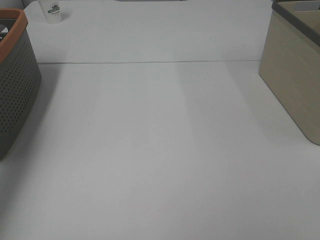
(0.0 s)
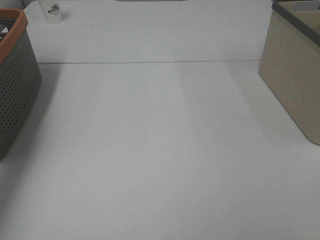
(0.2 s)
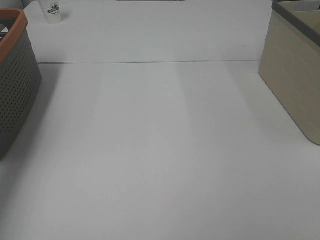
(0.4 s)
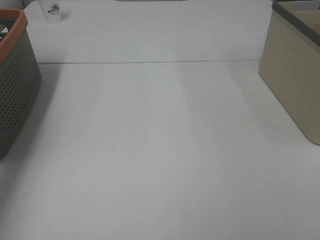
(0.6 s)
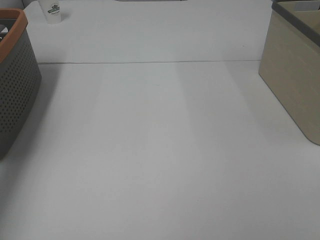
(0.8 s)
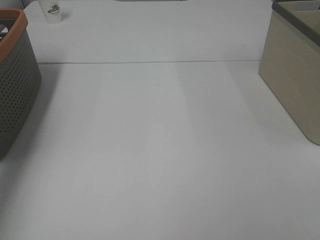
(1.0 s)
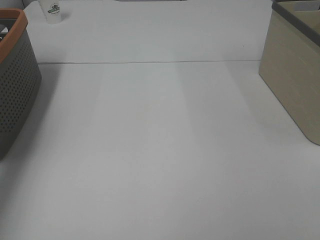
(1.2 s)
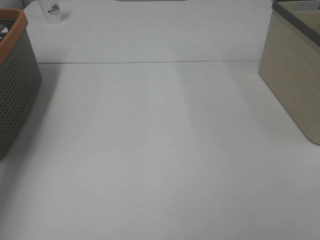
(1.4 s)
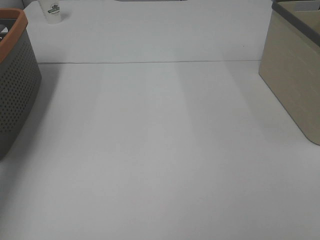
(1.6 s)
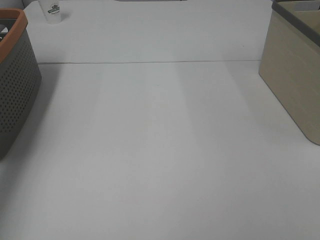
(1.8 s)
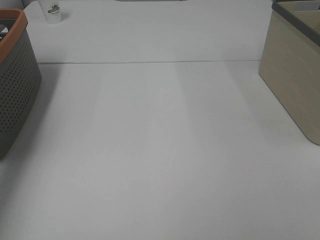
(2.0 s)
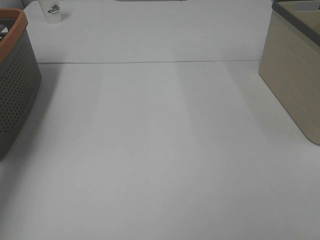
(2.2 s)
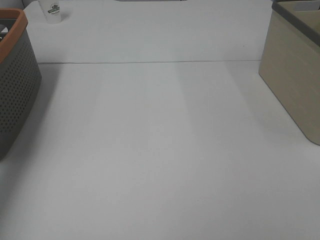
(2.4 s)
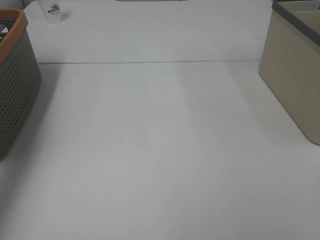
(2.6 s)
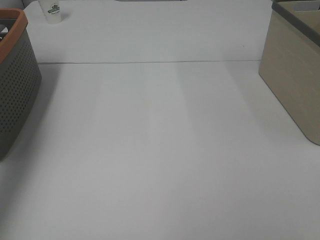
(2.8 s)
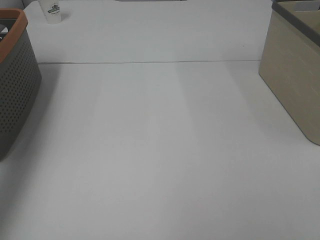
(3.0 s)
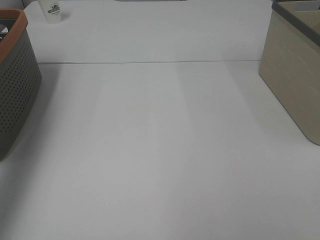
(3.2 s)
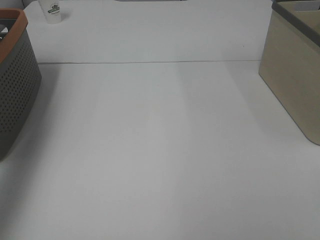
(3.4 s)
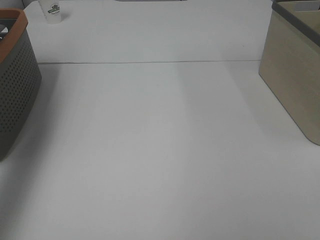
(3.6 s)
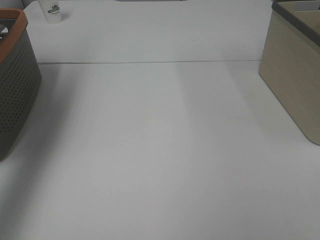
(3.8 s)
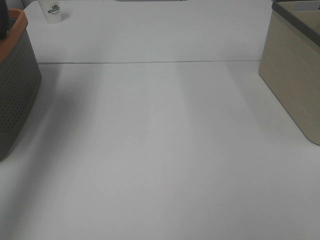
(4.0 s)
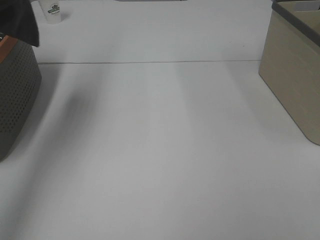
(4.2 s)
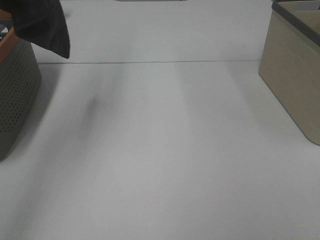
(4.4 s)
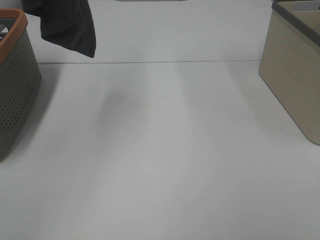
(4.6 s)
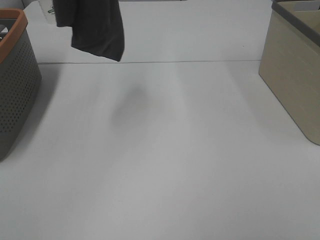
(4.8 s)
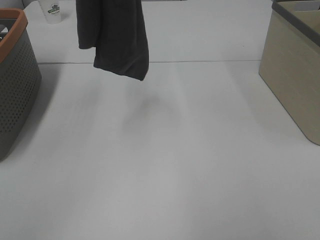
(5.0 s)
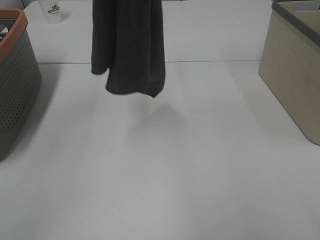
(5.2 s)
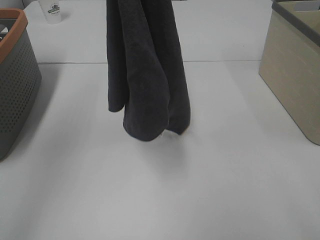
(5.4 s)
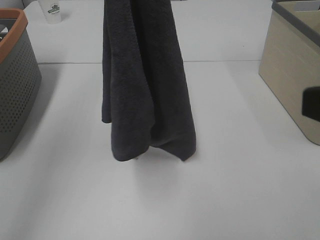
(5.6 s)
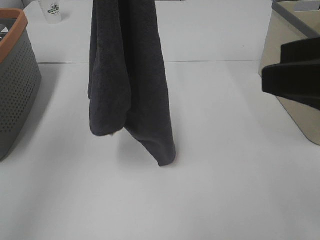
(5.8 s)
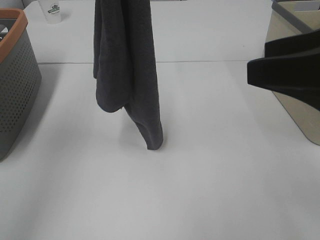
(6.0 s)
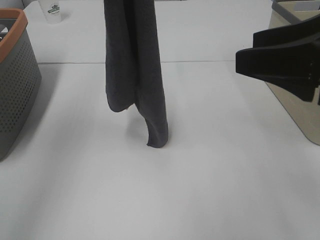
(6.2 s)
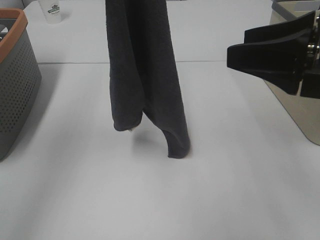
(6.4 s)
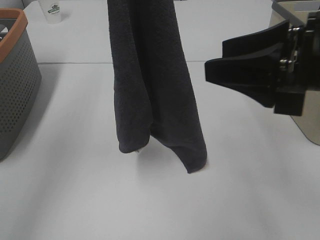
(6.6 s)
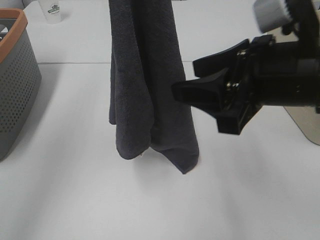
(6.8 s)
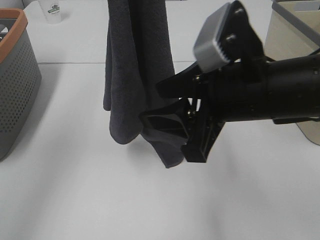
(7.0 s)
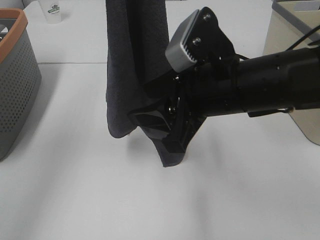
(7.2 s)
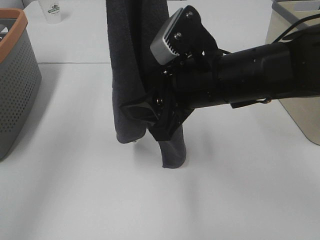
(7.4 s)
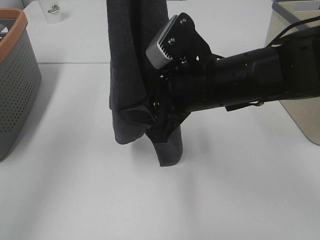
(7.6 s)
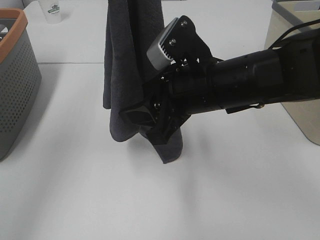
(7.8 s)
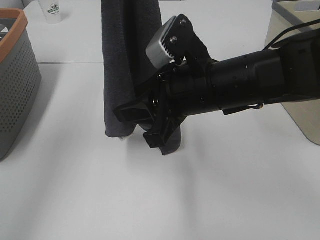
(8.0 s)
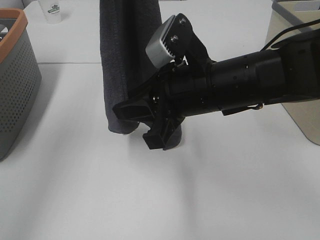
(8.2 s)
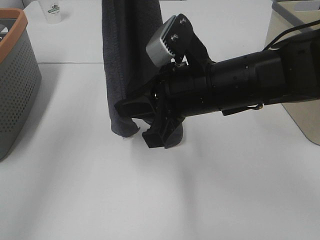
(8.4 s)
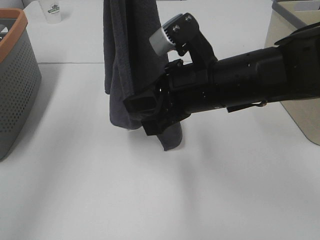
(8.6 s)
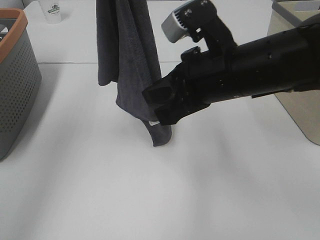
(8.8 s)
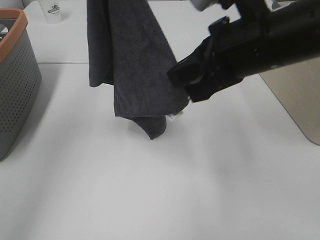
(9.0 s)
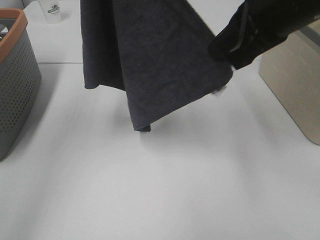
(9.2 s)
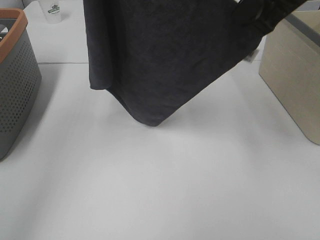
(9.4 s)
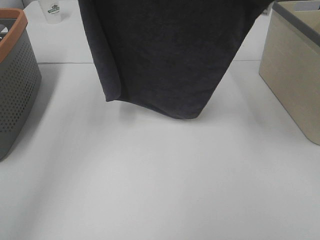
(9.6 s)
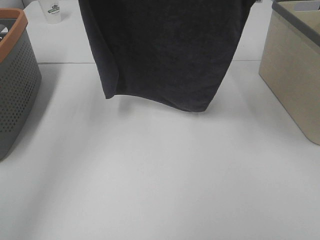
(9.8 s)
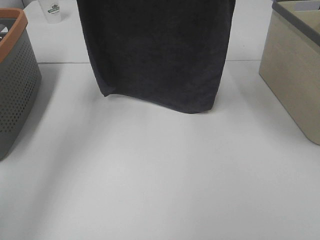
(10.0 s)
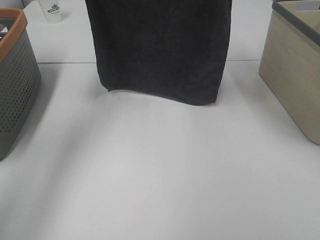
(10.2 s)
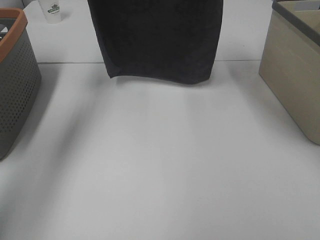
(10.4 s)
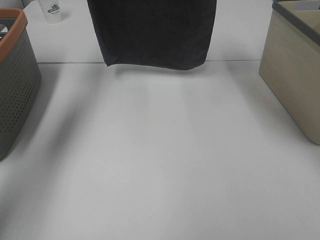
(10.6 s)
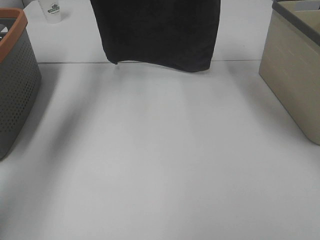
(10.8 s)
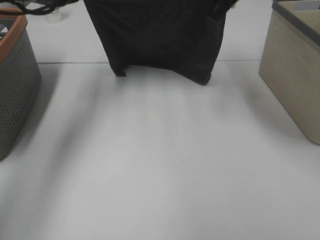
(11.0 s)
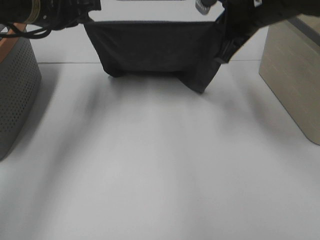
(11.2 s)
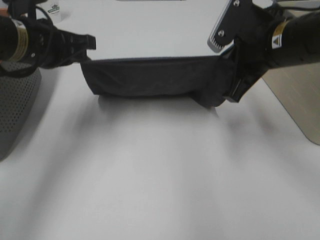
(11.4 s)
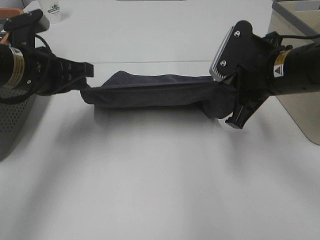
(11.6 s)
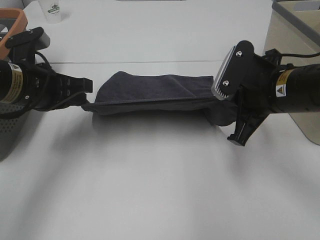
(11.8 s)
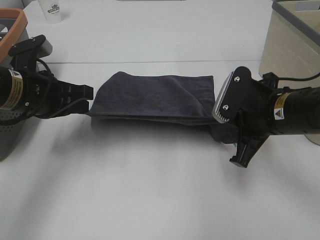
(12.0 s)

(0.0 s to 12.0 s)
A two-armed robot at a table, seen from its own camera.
Task of the whole recording: Remove the towel and place it.
Step, 3.8 s - 7.2 s: Right hand: grab a corner of the grey towel and straighten it.
Step, 7.4 s - 8.8 s: Left hand: spread the grey towel flat on the table.
Step, 7.4 s - 9.0 s: Right hand: spread the grey towel flat on the table.
3.0 s - 4.4 s: The left gripper moves upward and to the right, some 20 cm.
4.4 s - 6.0 s: The right gripper shifts approximately 20 cm forward and to the left. Meanwhile the left gripper travels downward and to the right by some 10 cm.
6.0 s - 7.6 s: The right gripper goes some 20 cm to the left, downward and forward.
7.6 s - 9.0 s: The right gripper is displaced upward by roughly 5 cm, and closes up.
9.0 s - 10.4 s: The left gripper is displaced forward and downward by roughly 20 cm. Meanwhile the right gripper travels forward and upward by approximately 25 cm.
10.4 s - 12.0 s: The left gripper shifts roughly 25 cm backward and downward; the right gripper shifts about 30 cm downward and backward.

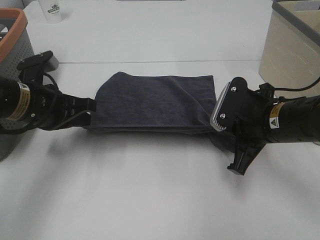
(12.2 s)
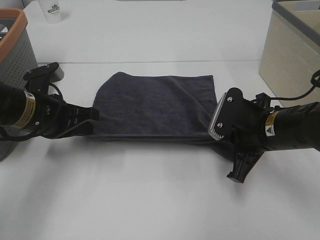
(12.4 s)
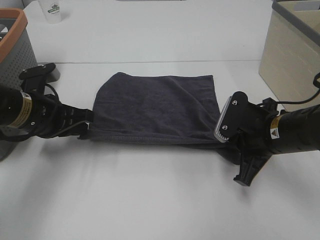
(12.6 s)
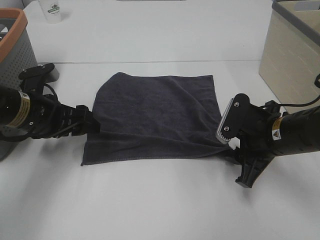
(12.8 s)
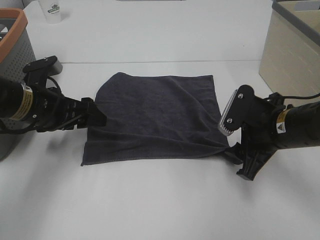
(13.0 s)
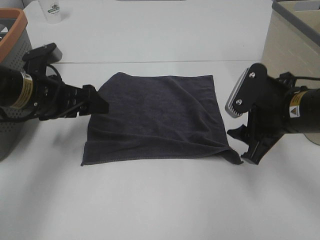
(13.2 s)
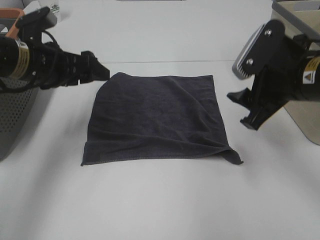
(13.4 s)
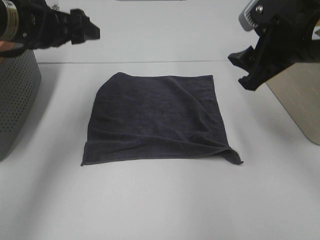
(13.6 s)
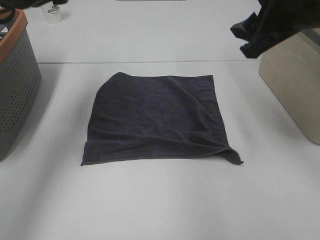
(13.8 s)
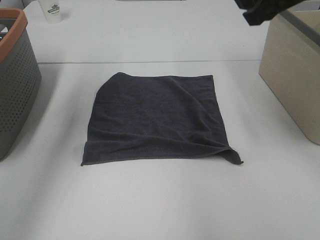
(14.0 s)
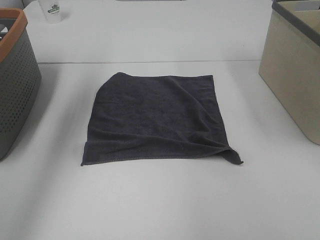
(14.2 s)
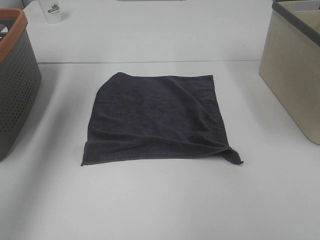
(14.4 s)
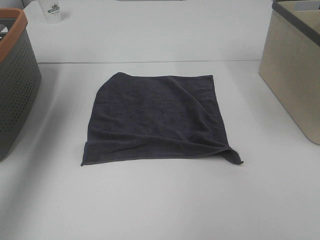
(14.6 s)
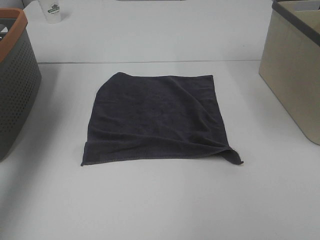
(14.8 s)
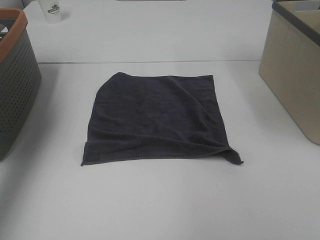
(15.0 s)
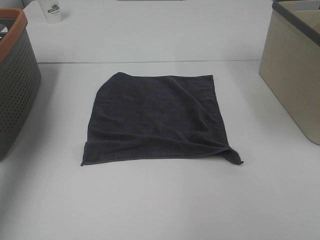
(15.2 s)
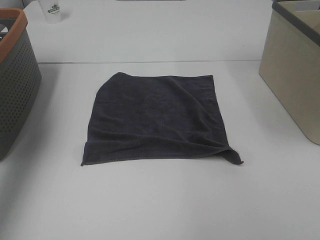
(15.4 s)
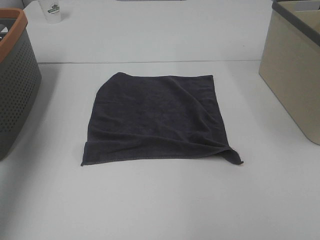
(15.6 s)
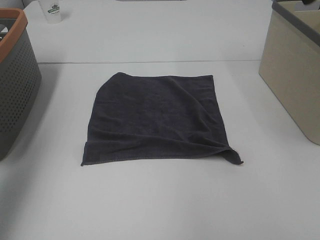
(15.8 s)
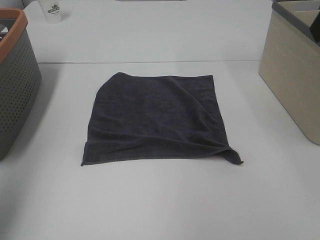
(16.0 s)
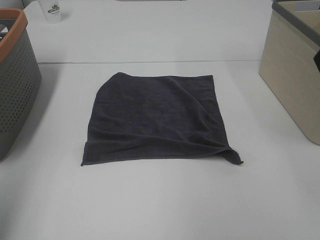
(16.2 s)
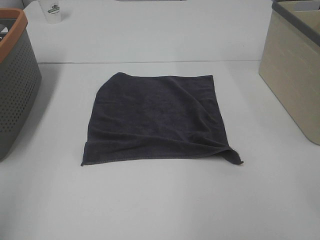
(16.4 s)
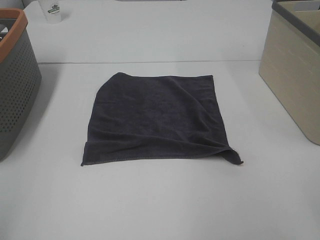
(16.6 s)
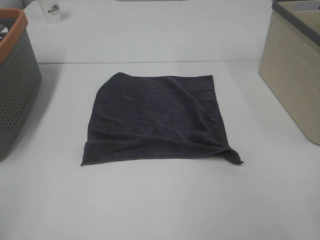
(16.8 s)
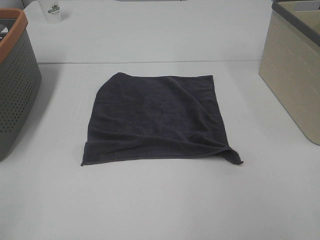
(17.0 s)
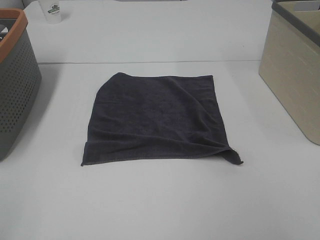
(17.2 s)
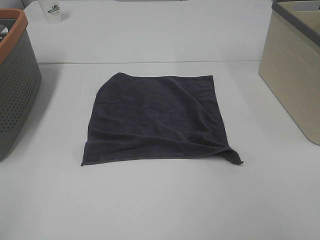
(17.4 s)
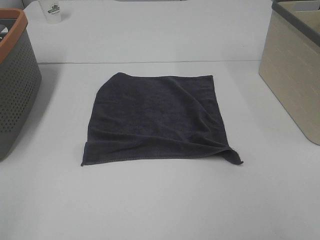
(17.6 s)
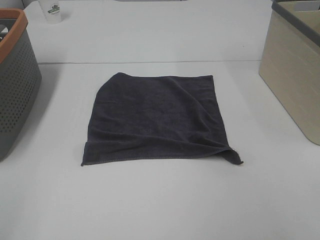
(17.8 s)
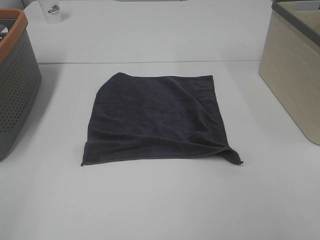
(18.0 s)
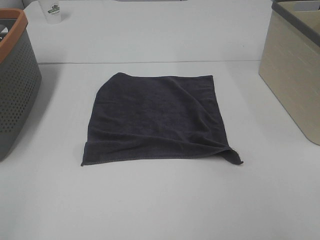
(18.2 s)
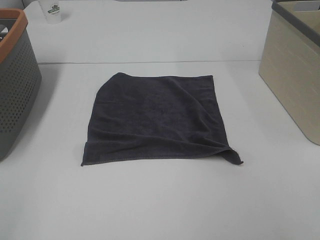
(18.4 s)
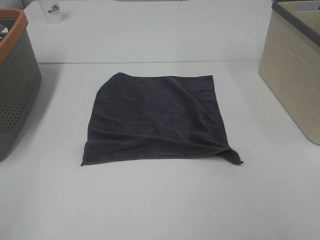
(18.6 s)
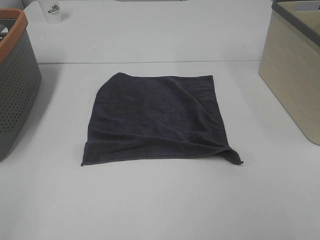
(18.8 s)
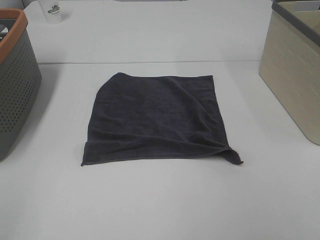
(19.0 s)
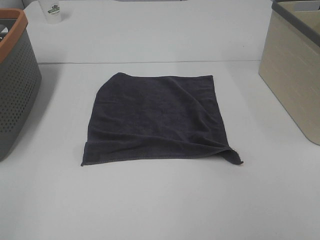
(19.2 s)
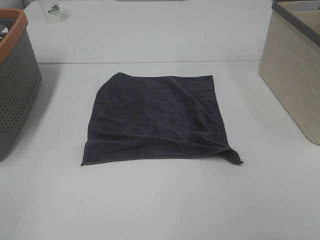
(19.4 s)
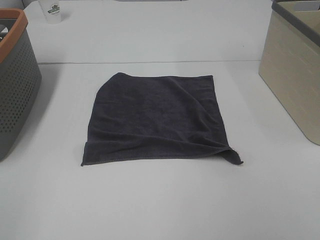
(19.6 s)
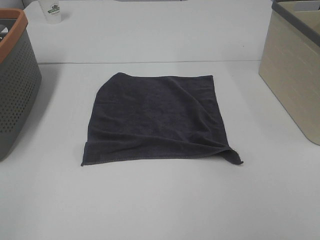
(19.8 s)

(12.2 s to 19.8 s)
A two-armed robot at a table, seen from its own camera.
Task of the whole recording: Remove the towel and place it.
12.2 s - 13.8 s: The right gripper shifts some 15 cm upward, and opens. Meanwhile the left gripper heads upward and forward, covering approximately 15 cm, and opens up.
13.8 s - 15.2 s: The left gripper shifts some 15 cm to the left and upward; the right gripper moves upward and forward, some 15 cm.
15.2 s - 16.8 s: The right gripper travels backward and downward by about 30 cm, while the left gripper is displaced backward by some 30 cm.

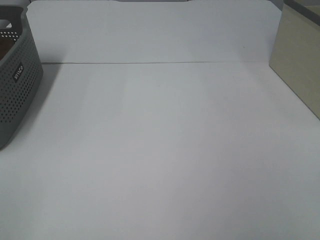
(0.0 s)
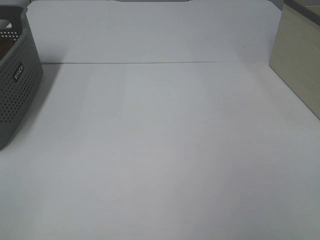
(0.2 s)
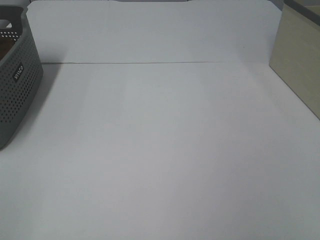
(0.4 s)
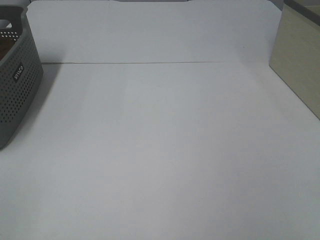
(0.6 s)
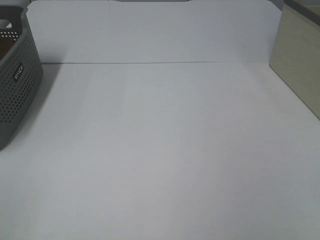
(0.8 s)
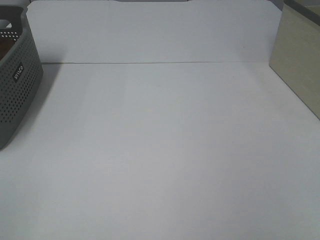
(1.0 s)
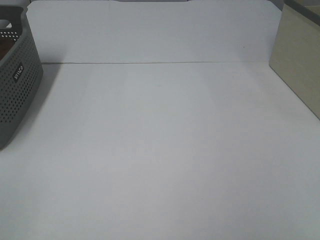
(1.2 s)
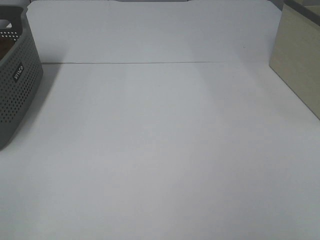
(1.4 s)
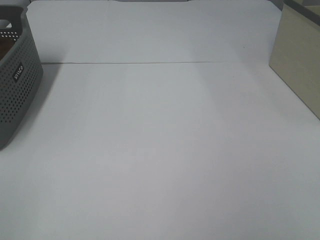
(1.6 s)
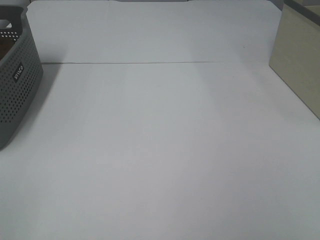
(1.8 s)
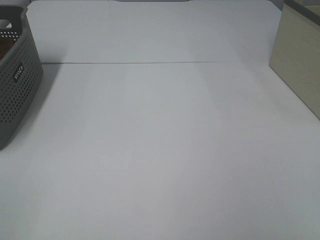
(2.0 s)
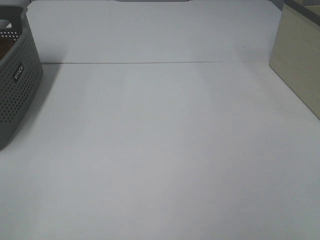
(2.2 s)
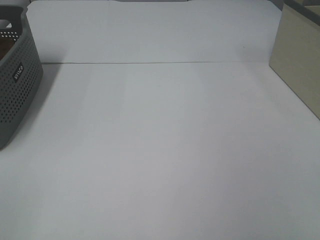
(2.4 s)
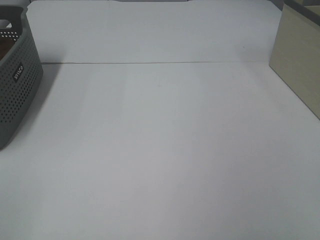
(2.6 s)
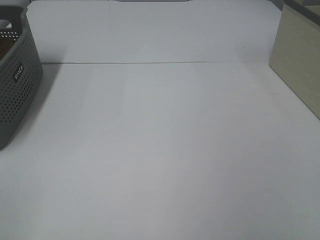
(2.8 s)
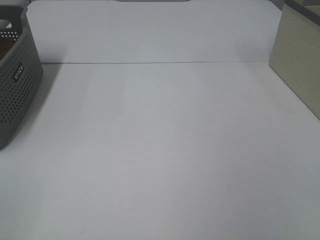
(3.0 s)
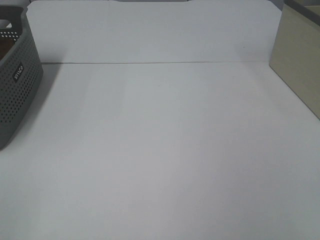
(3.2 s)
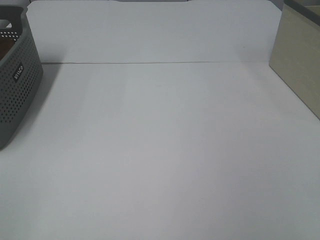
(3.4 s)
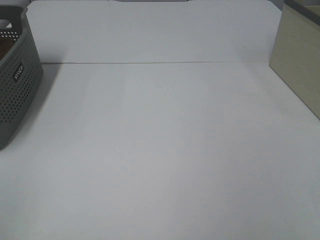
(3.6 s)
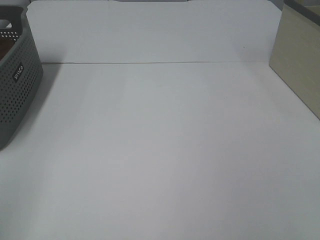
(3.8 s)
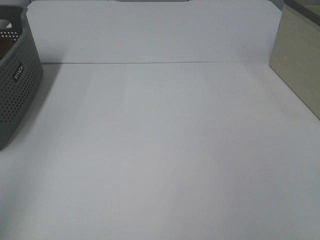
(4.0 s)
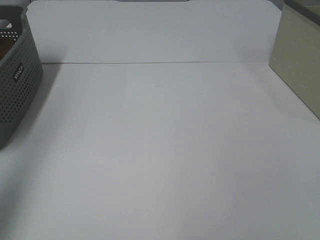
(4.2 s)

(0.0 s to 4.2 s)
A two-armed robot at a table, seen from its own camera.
Task of the whole recording: Remove the towel and place it.
0.0 s - 2.8 s: Neither gripper changes place.
2.8 s - 4.2 s: The left gripper is displaced forward and upward by about 20 cm.
